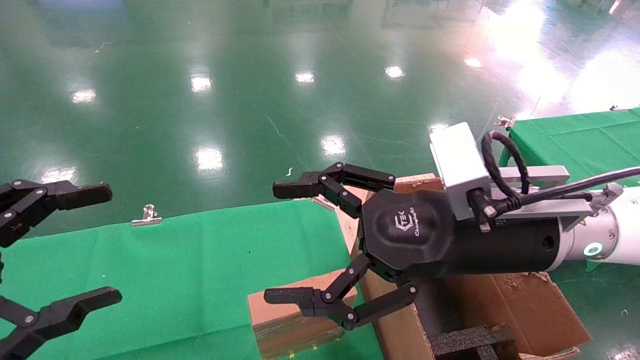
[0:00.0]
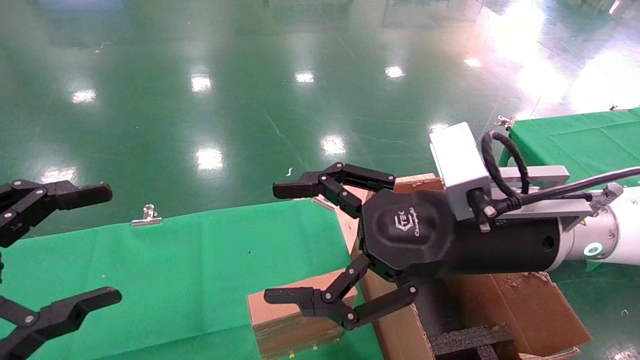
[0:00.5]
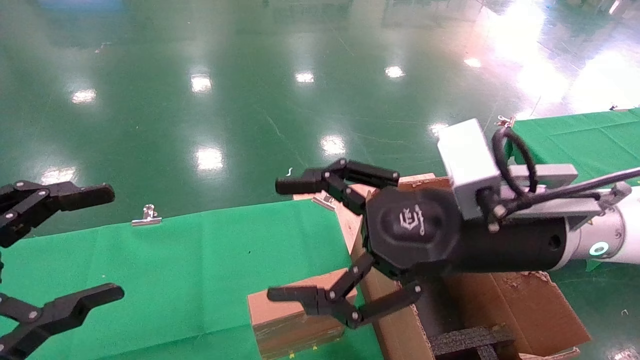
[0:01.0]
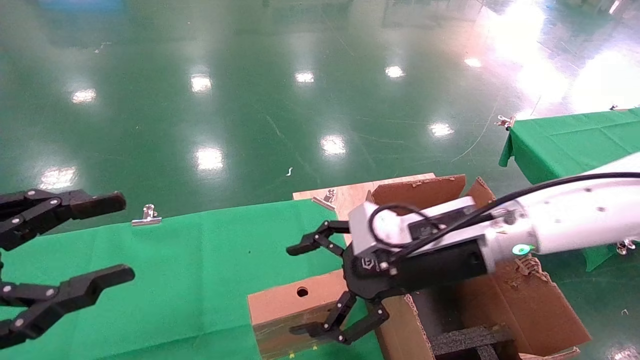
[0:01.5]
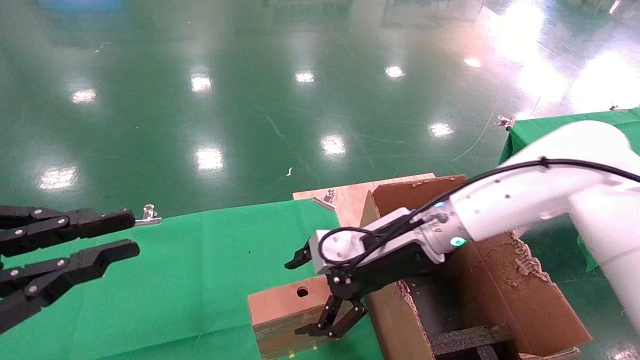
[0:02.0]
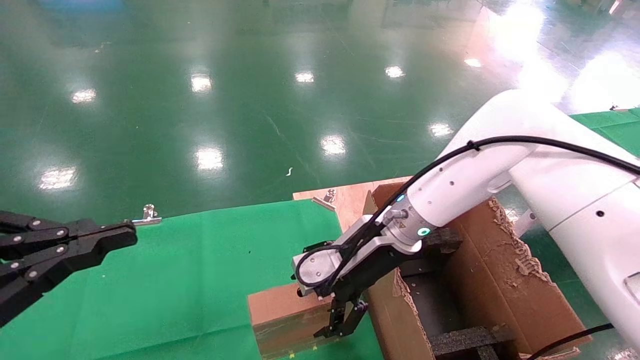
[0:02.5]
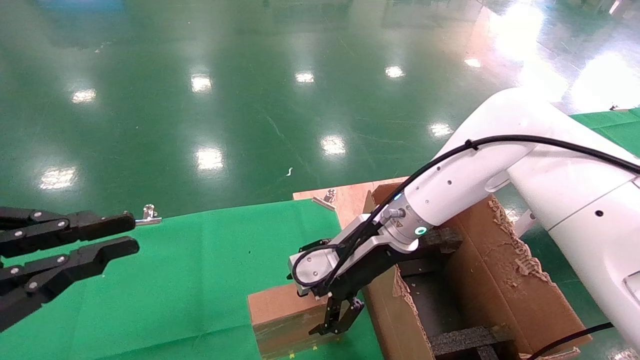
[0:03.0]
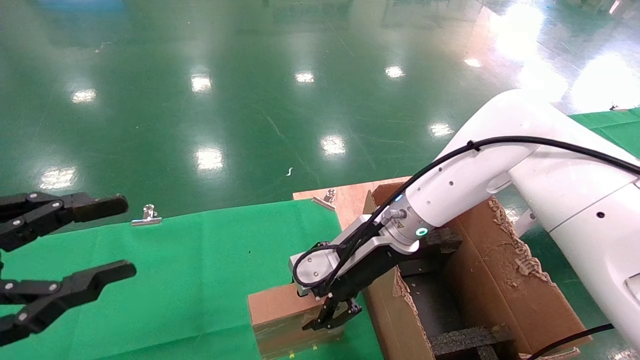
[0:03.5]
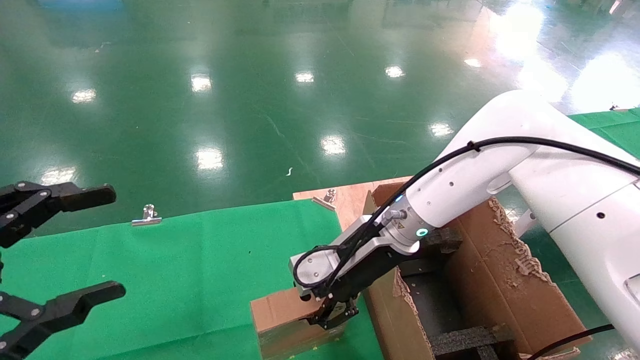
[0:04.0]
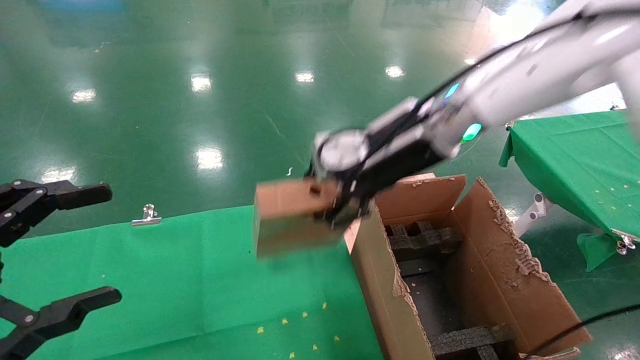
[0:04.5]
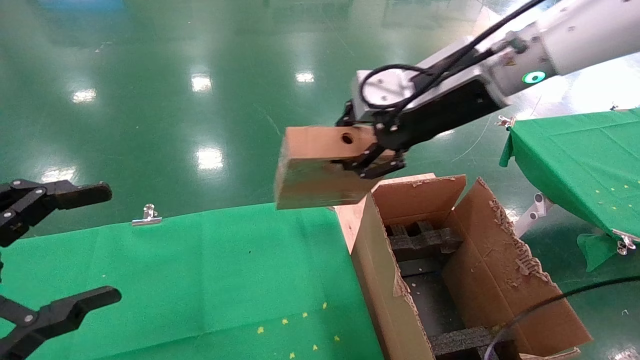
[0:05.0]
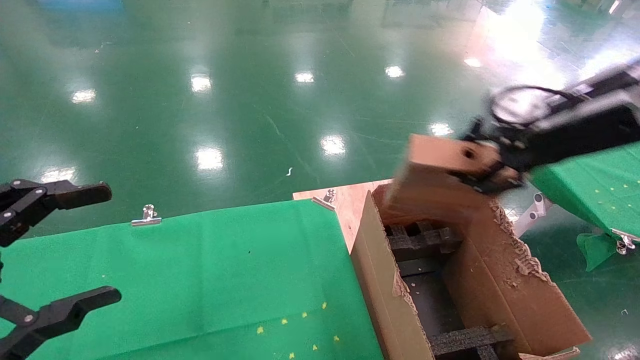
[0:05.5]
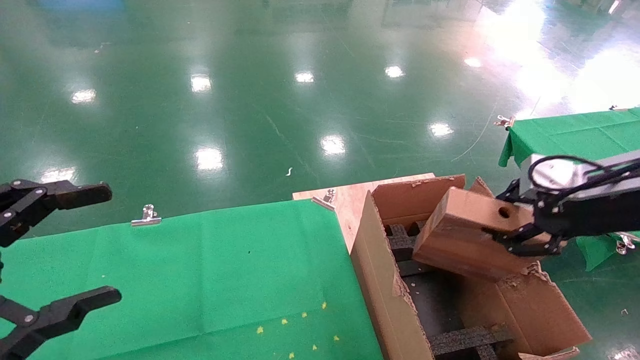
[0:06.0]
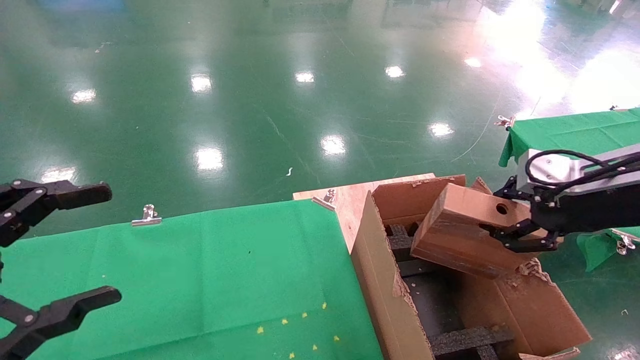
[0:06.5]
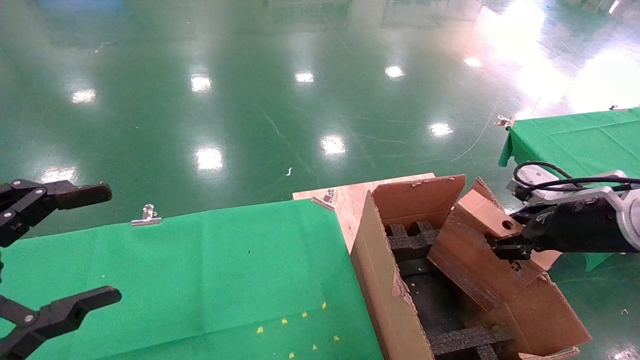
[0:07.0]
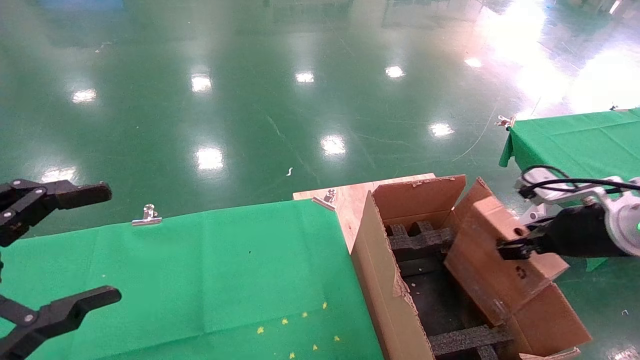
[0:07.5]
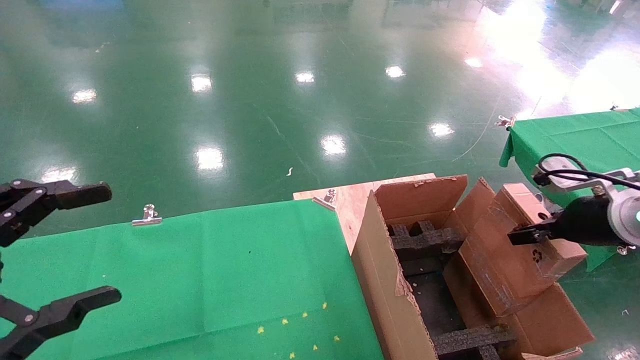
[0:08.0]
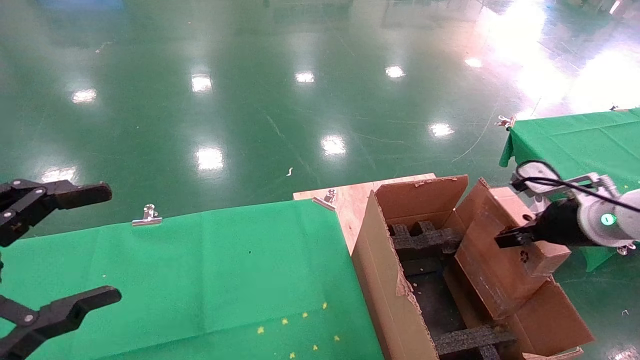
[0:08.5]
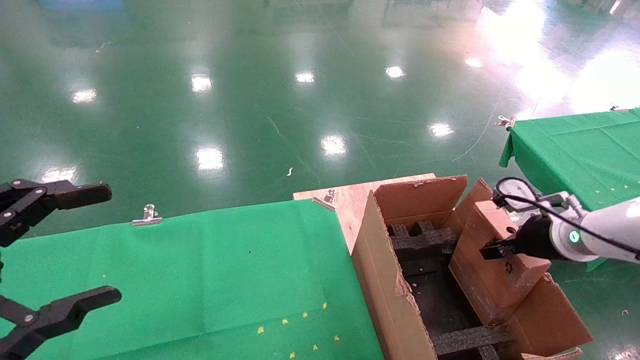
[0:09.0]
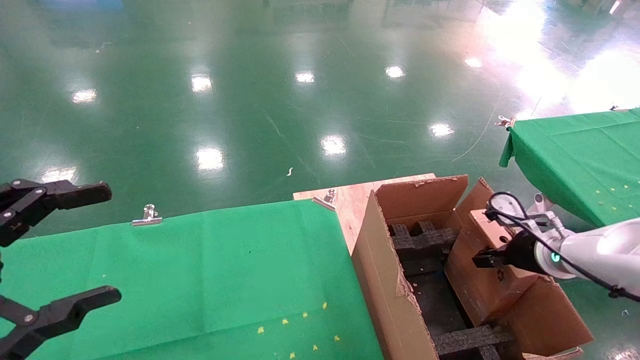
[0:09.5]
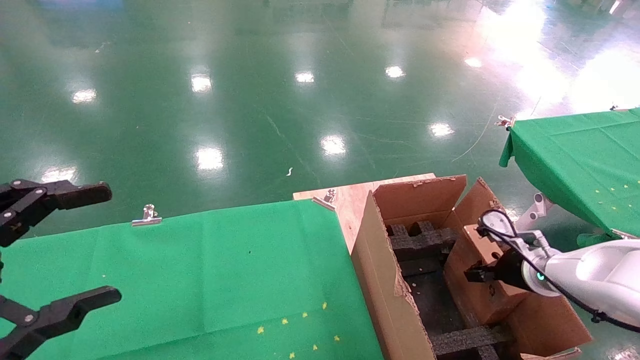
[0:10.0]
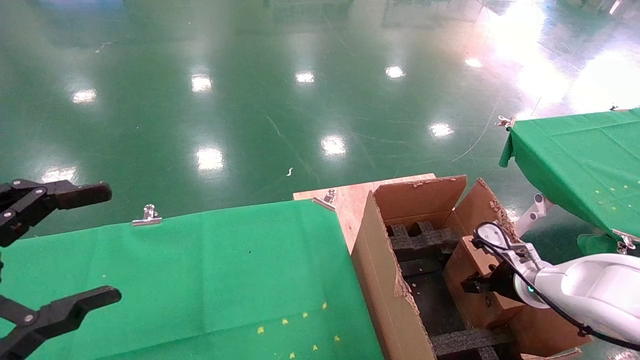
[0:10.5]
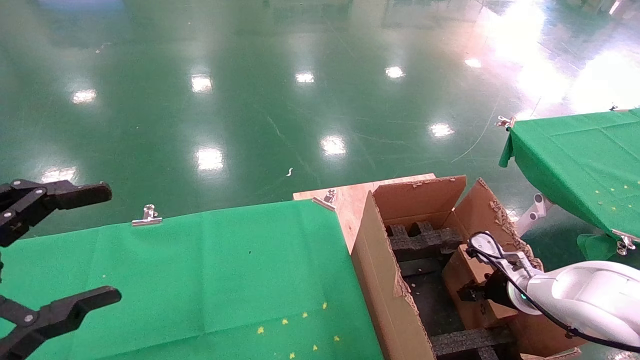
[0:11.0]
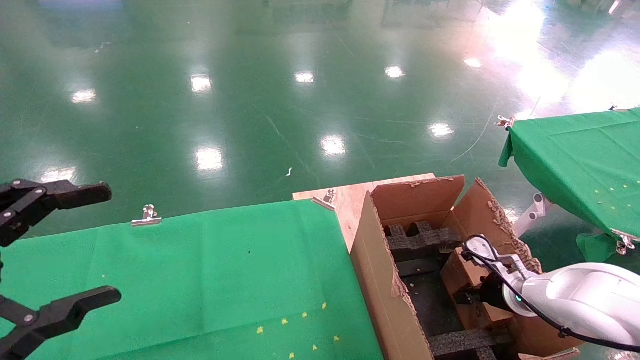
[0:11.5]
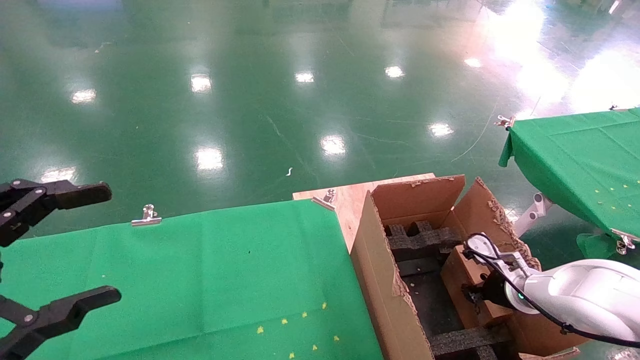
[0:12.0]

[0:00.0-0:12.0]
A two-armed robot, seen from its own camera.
Task of the whole recording: using a robotic arm to pick up a cardboard box and palace it the carton.
Step, 0:01.5 to 0:03.5: Pick up the mouse and the power cord paper box.
0:00.0 to 0:02.0: The right gripper goes approximately 15 cm forward and downward. Meanwhile the left gripper closes.
0:02.0 to 0:04.0: The right gripper closes; the left gripper opens its fingers.
0:04.0 to 0:06.0: The right gripper shifts roughly 30 cm to the right and backward.
0:06.0 to 0:08.0: The right gripper is displaced downward and forward by some 10 cm.
0:08.0 to 0:10.0: The right gripper travels downward and forward by roughly 15 cm.
0:10.0 to 0:12.0: The right gripper is displaced downward by approximately 5 cm.

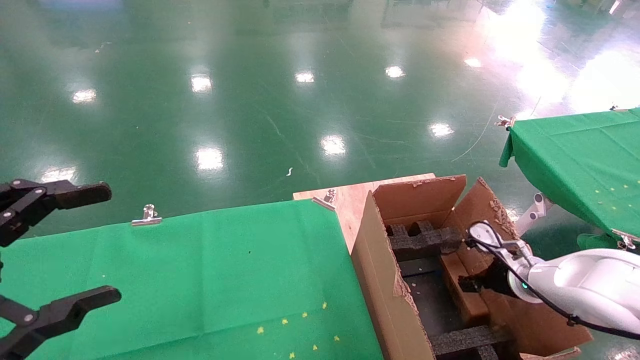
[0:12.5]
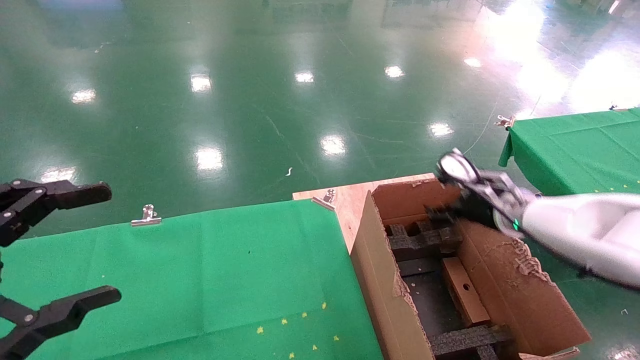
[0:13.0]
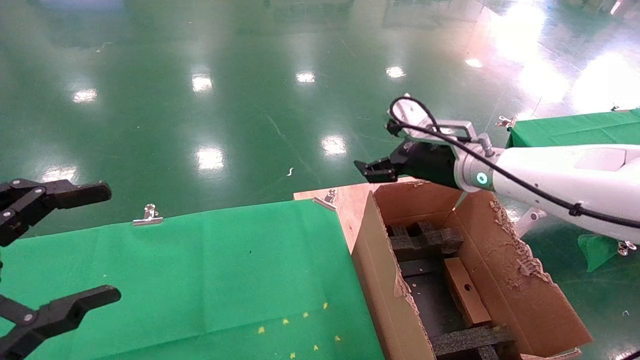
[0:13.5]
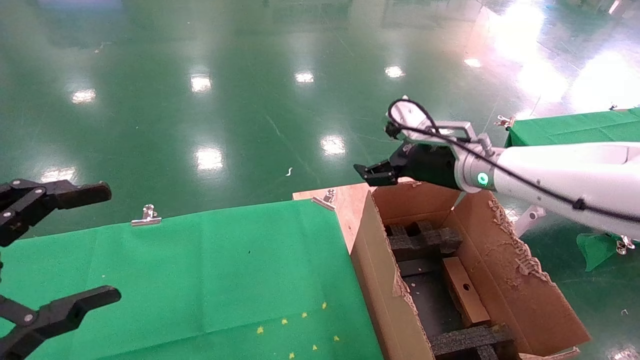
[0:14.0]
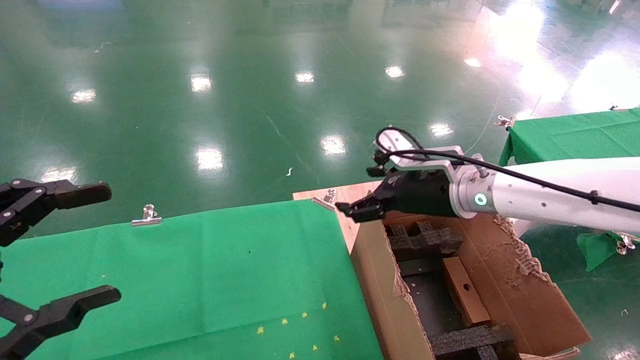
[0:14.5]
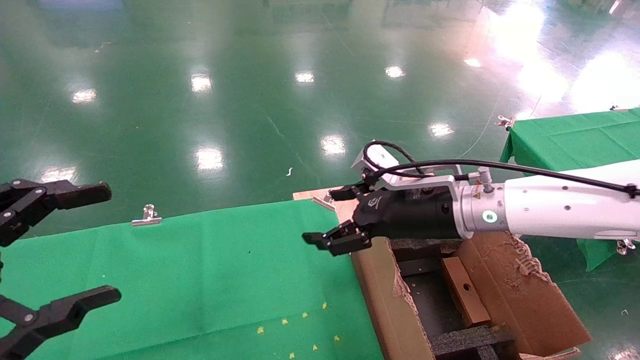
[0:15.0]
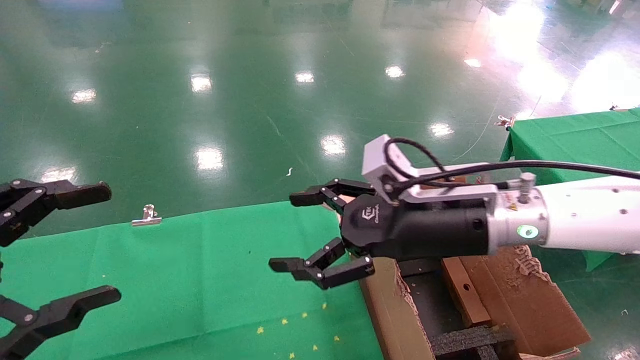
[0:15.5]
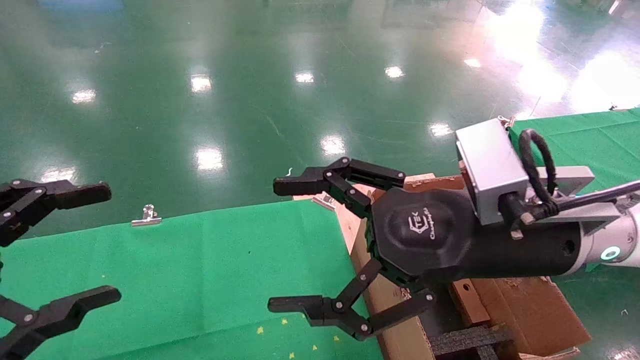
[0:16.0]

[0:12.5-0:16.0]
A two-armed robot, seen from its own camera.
Task of the whole recording: using a robotic arm to pick up a cardboard box and palace it the carton.
0:12.5 to 0:14.5: The right gripper moves upward and to the left, about 20 cm.
0:14.5 to 0:16.0: The right gripper moves backward, some 15 cm.
